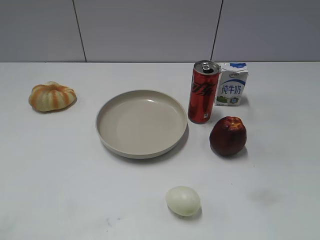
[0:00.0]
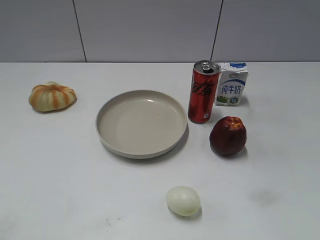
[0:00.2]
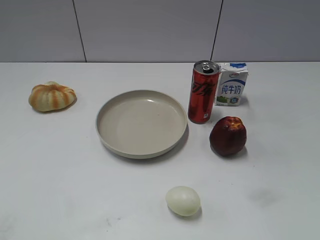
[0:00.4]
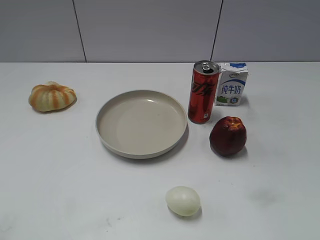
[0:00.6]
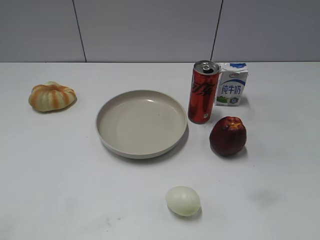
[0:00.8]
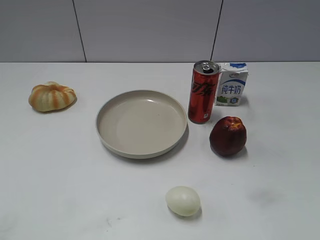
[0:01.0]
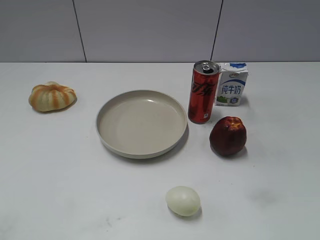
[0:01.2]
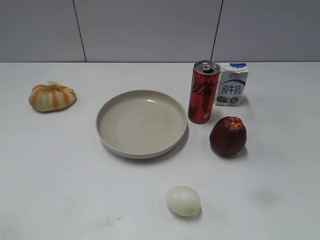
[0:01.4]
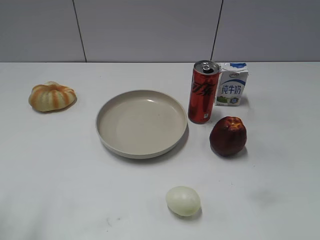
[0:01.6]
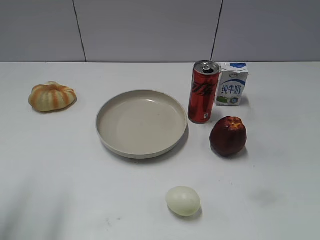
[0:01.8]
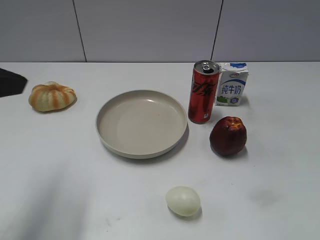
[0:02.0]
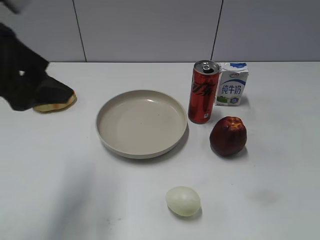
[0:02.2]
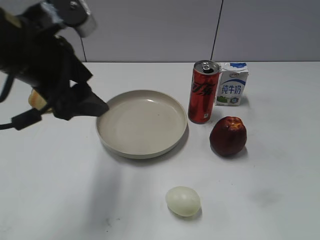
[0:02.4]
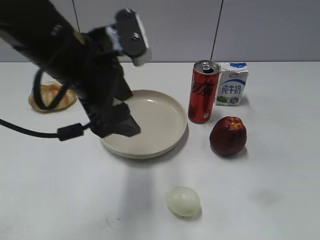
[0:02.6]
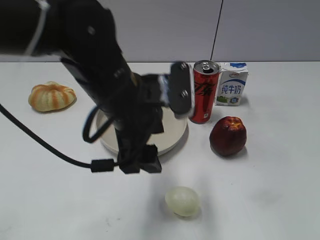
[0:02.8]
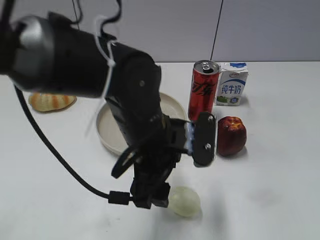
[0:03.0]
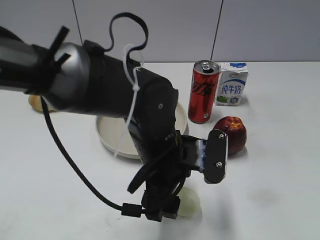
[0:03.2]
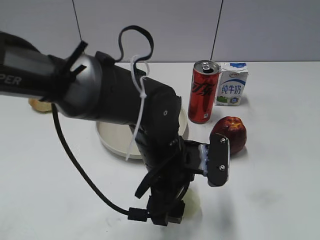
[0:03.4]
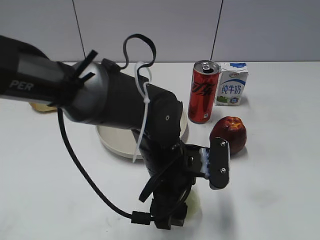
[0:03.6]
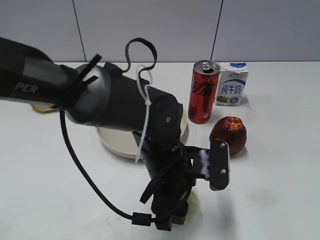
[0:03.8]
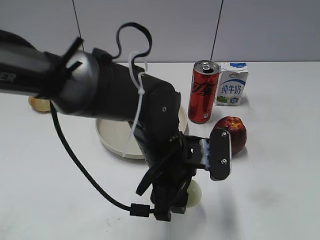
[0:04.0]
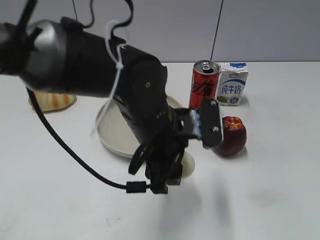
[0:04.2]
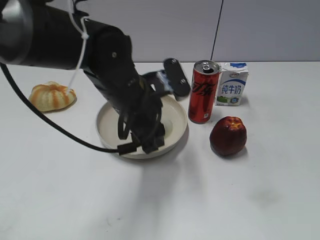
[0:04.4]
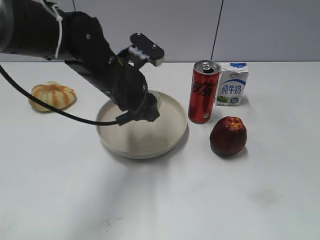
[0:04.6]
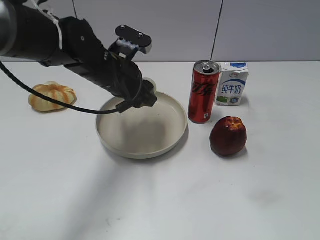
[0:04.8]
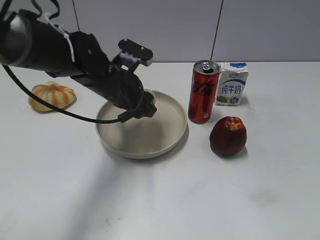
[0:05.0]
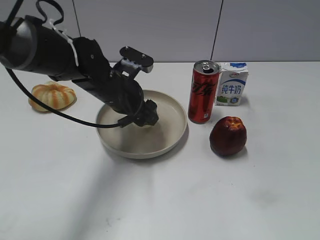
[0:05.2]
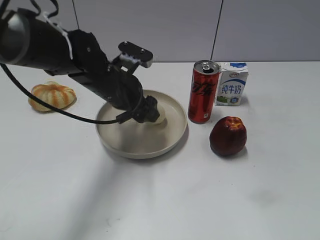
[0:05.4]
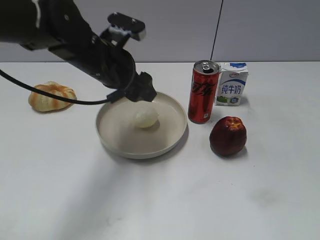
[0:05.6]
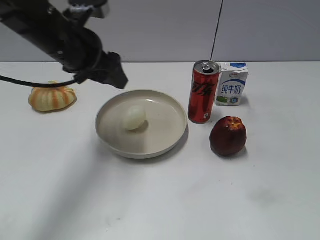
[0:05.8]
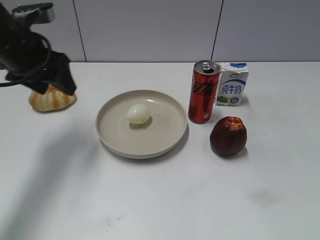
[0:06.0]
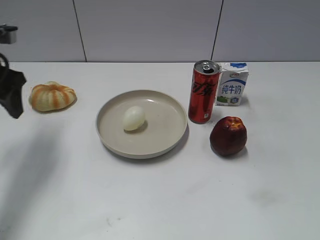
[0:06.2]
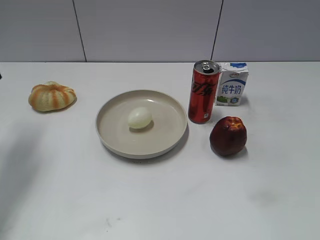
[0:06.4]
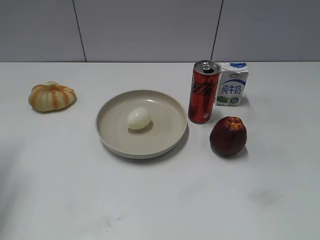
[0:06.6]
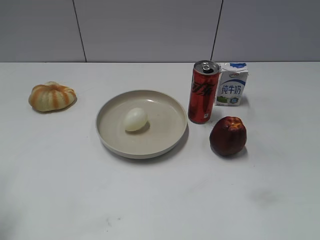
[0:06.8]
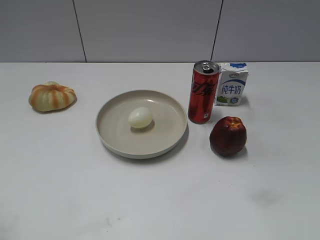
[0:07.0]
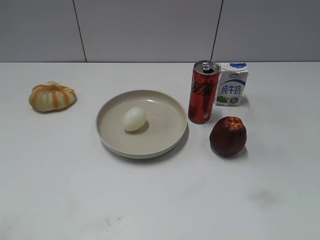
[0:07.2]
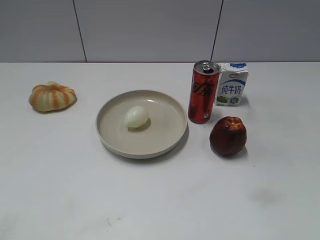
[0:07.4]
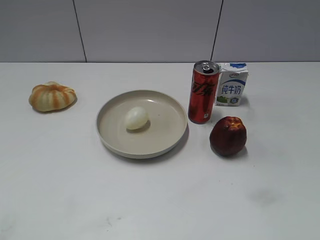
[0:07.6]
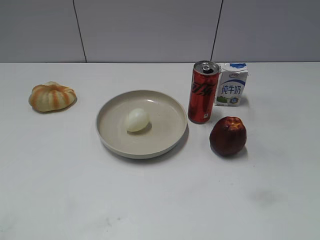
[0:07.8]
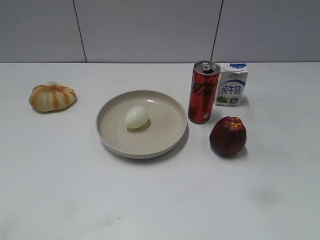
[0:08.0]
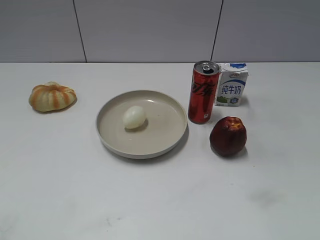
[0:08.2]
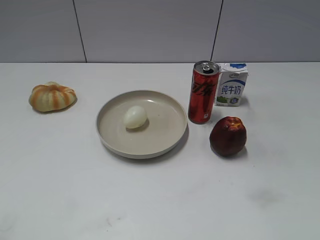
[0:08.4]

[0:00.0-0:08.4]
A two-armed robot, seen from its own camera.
Step, 0:00.0 to 0:03.6: Grasp the egg with left gripper.
Step, 0:03.8 to 0:05.6: Place the egg on the plate with left gripper.
0:01.4 to 0:02.8: The left gripper moves to the right, forward and downward, approximately 35 cm, and opens its fingers.
0:02.8 to 0:04.2: The left gripper closes.
0:04.2 to 0:05.6: The left gripper shifts approximately 15 cm forward and to the left, and opens up.
0:05.6 to 0:07.0: The left gripper goes approximately 30 cm to the left and backward.

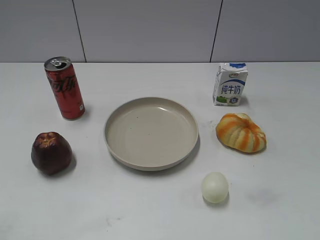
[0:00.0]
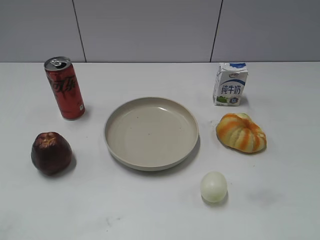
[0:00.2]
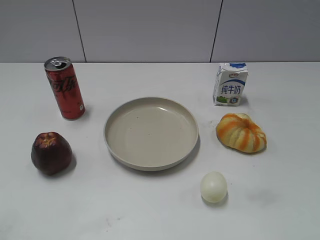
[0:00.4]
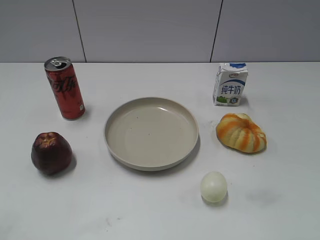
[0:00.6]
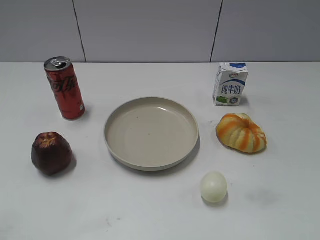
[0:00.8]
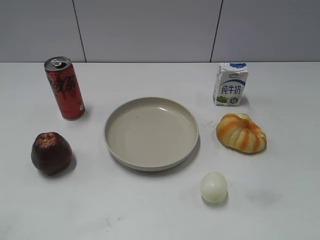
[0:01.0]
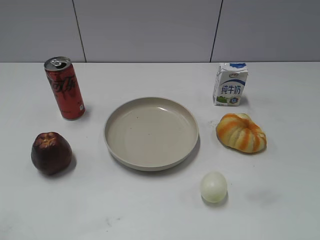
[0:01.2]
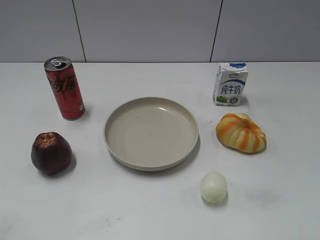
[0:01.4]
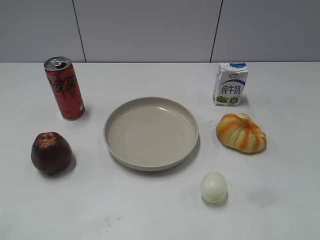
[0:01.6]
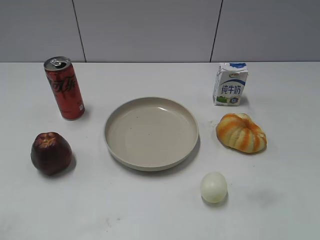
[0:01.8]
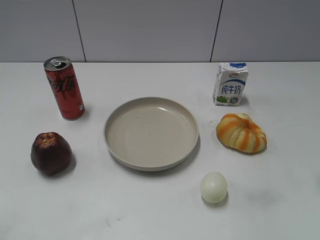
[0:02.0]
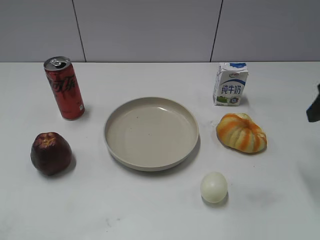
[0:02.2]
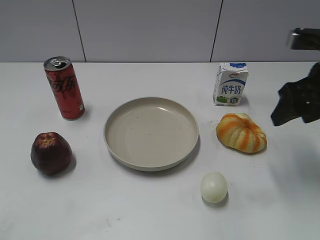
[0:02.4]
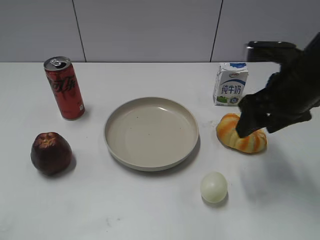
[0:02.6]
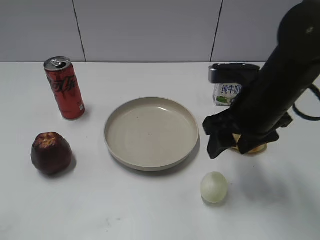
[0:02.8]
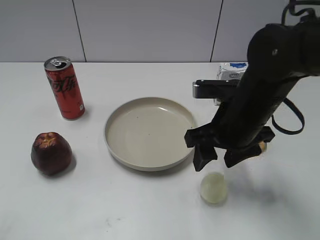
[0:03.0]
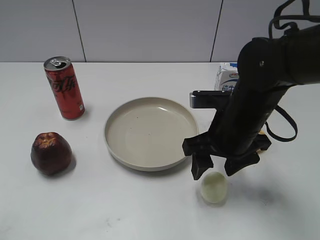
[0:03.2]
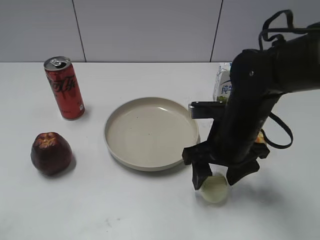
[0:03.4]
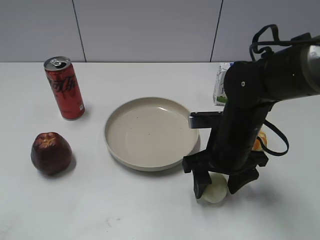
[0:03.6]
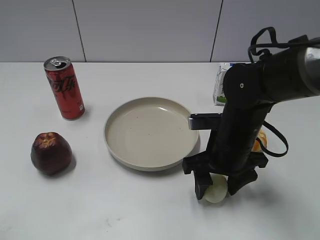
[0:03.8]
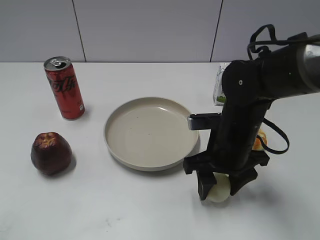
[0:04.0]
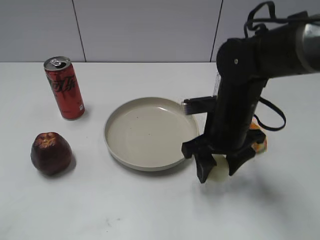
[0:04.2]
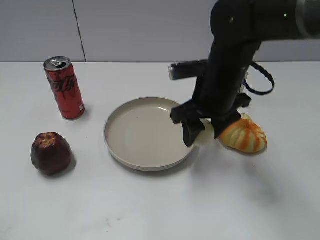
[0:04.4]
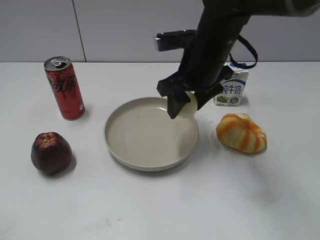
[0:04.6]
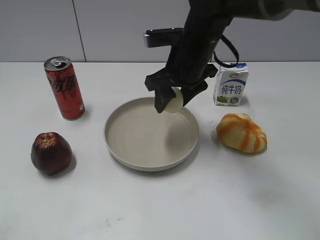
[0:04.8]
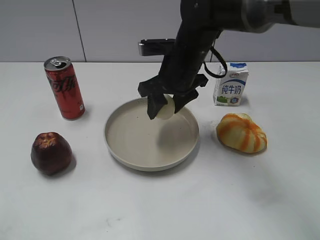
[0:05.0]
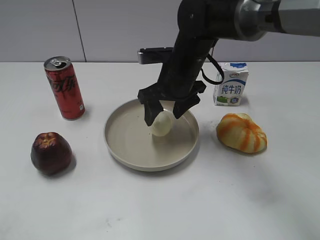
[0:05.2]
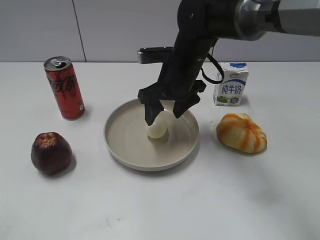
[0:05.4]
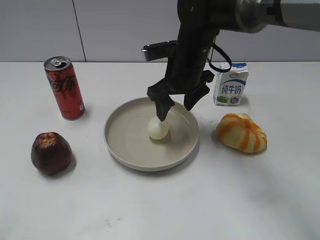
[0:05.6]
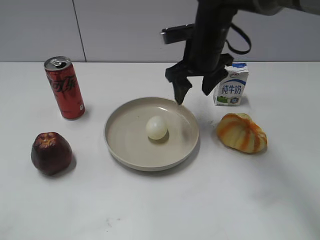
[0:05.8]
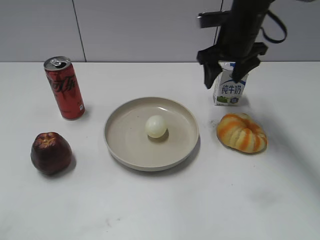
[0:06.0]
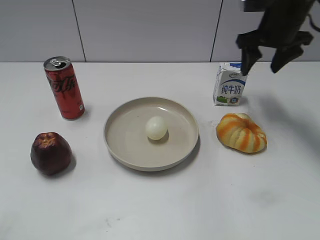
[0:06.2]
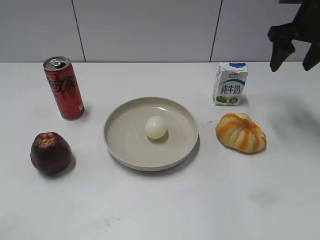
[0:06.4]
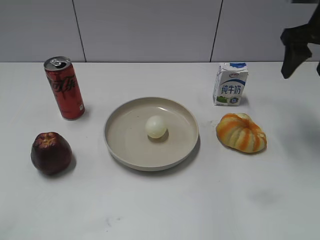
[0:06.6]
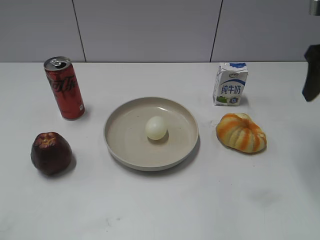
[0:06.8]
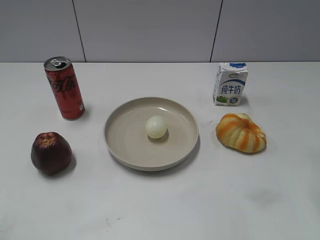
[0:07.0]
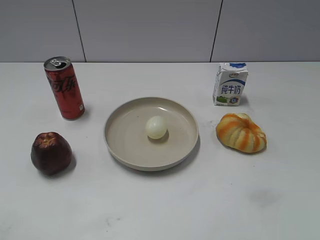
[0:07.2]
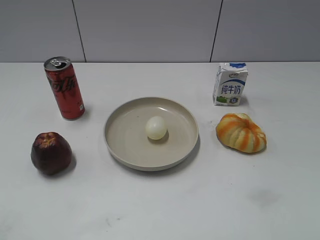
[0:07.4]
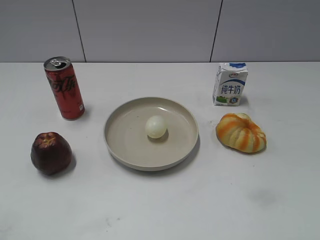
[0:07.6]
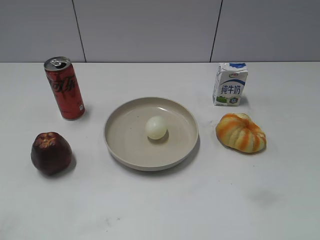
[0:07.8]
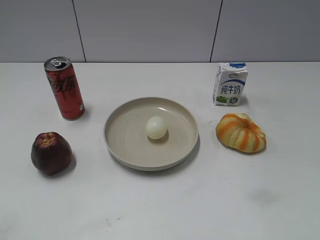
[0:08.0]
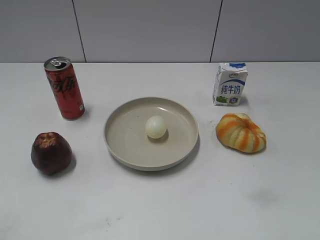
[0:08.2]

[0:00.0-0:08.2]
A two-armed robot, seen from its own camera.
Step, 0:01.0 to 0:03.8: Grasp the egg with right gripper.
Step, 0:04.0 to 0:05.6: Place the egg on the plate with right gripper.
0:01.6 to 0:03.2: The right gripper goes roughly 30 cm to the left, forward and downward.
0:03.2 to 0:05.0: The right gripper travels forward and to the left by some 15 cm, and closes up.
0:05.0 to 0:06.6: The right gripper heads to the right and upward, covering about 25 cm, and opens up.
0:06.6 to 0:08.2: The right gripper travels backward by approximately 35 cm.
